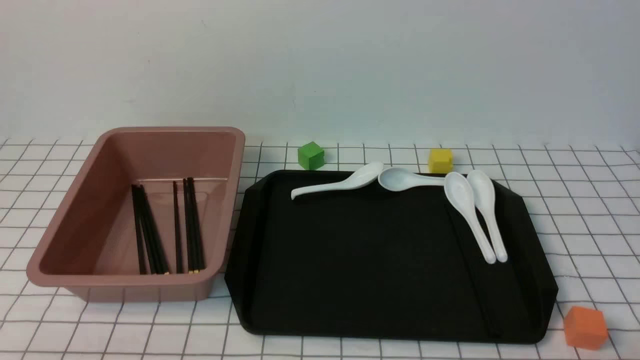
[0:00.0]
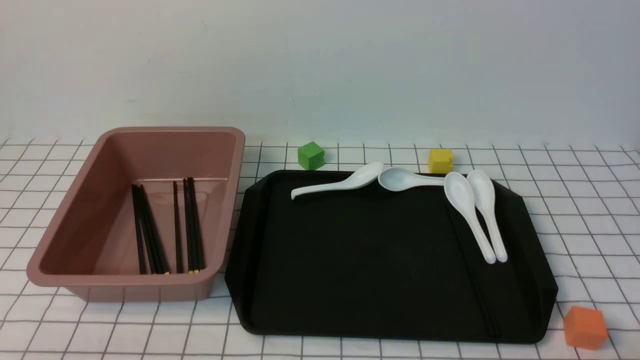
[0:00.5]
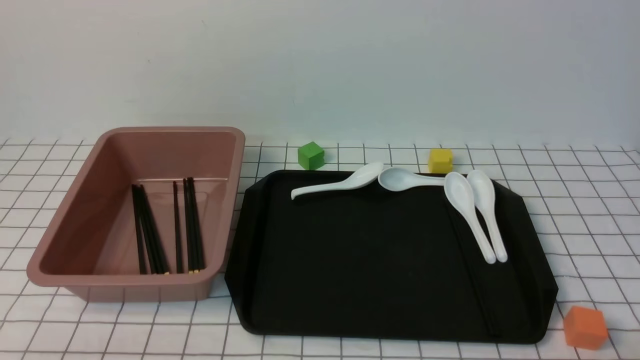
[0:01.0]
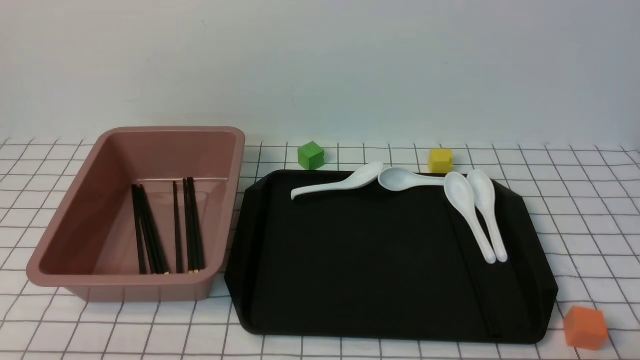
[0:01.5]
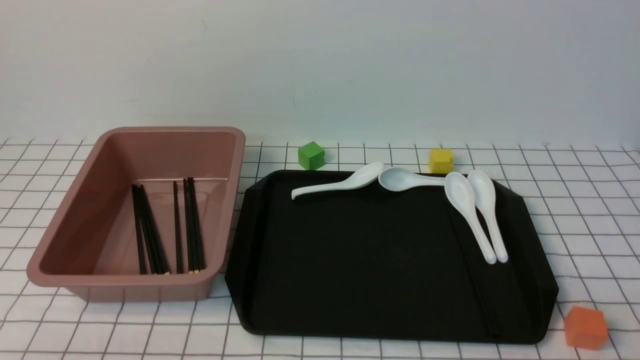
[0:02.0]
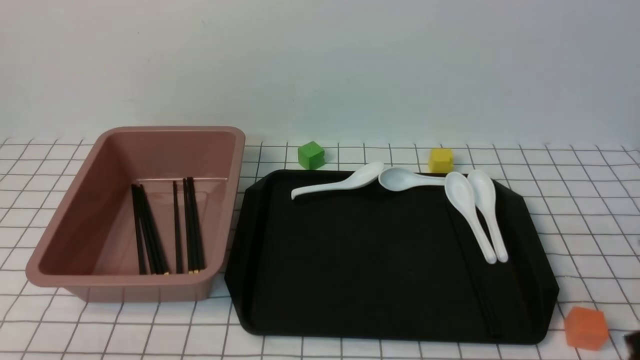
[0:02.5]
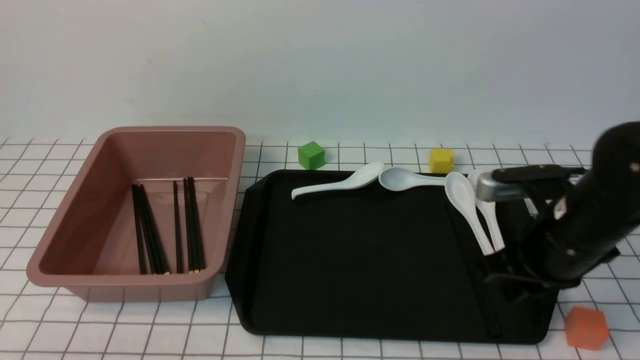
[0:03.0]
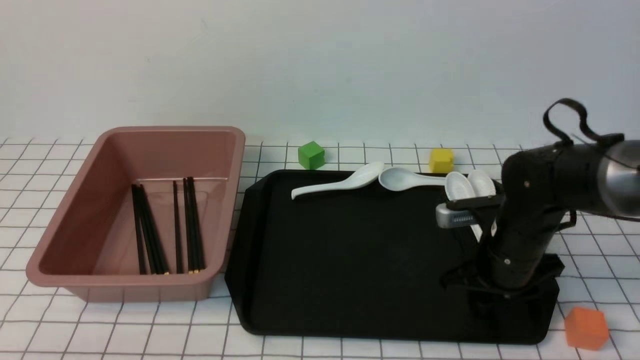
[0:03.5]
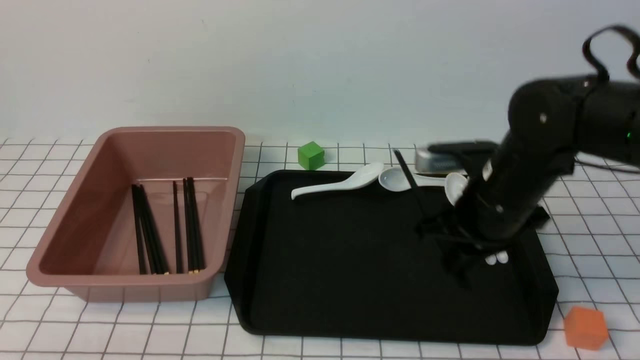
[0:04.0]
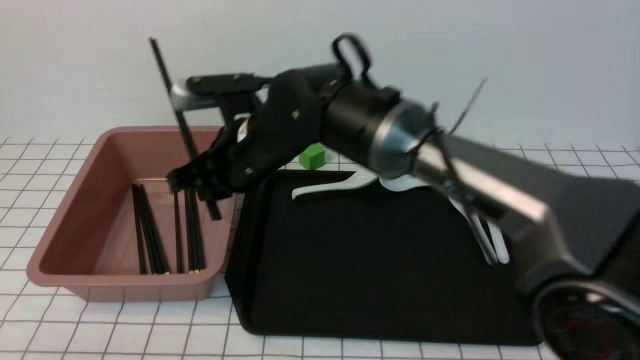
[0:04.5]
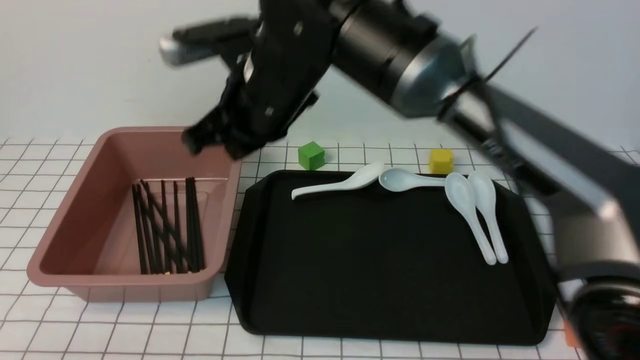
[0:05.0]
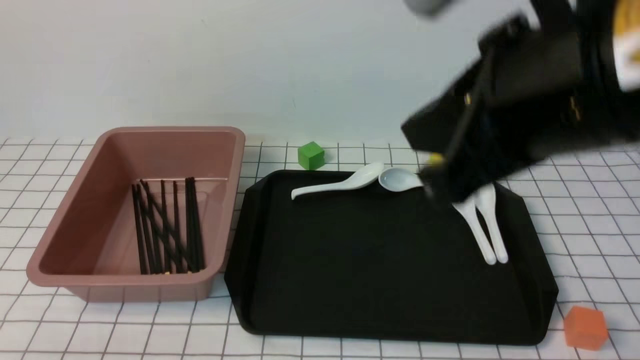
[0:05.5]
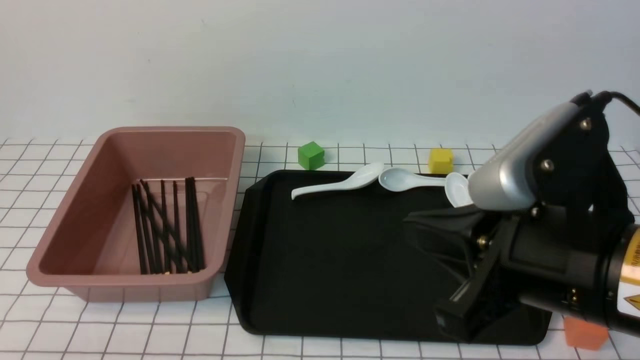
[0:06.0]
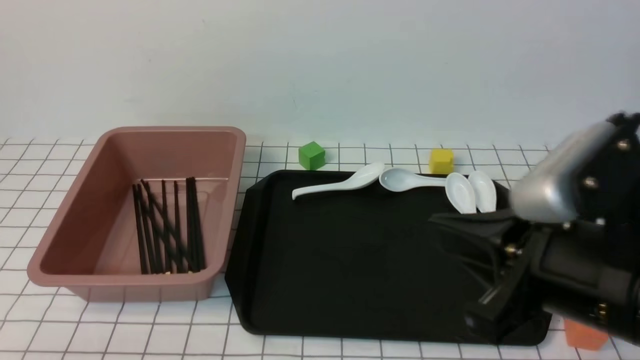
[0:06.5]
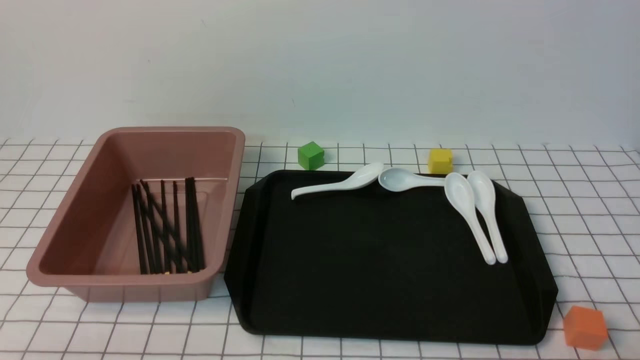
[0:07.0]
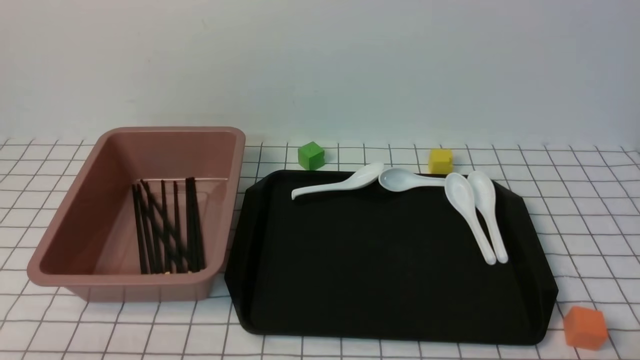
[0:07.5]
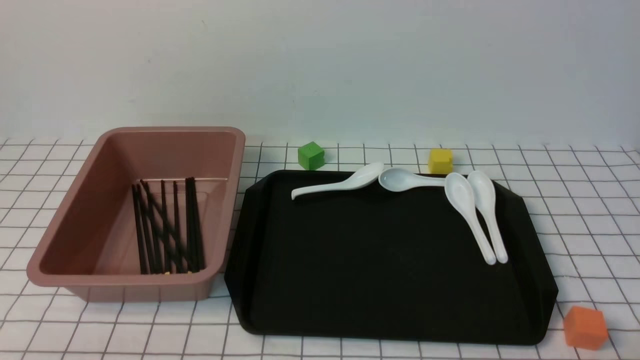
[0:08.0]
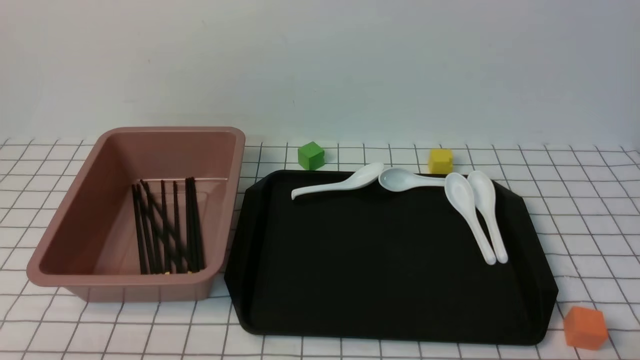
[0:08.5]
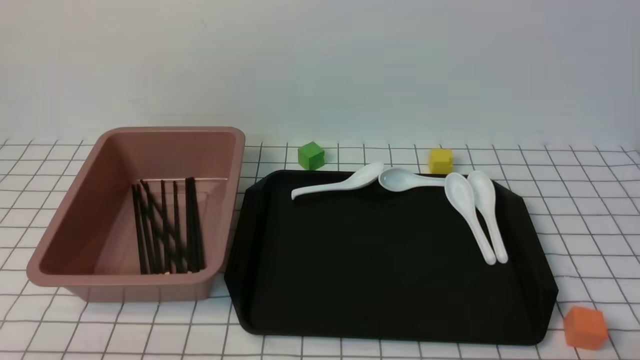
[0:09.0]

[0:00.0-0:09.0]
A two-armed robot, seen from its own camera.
Step, 0:00.0 to 0:03.5: use the right arm to grab a pair of chopsticks.
Step, 0:04.0 to 0:04.5: use the right arm to put the chopsticks into the lunch box.
0:02.0 to 0:04.5: The right gripper moves to the left and forward, approximately 50 cm, and closes, then reopens.
0:04.5 to 0:07.0: The right gripper goes approximately 50 cm to the right and backward, and closes.

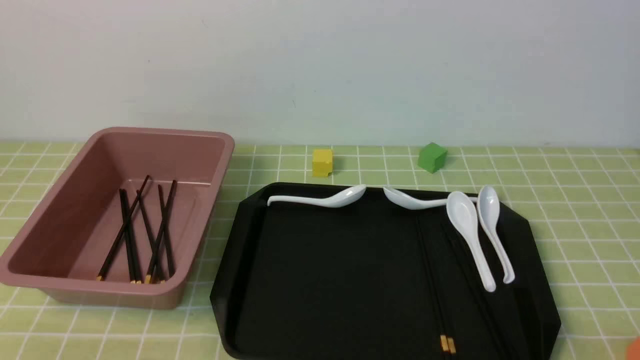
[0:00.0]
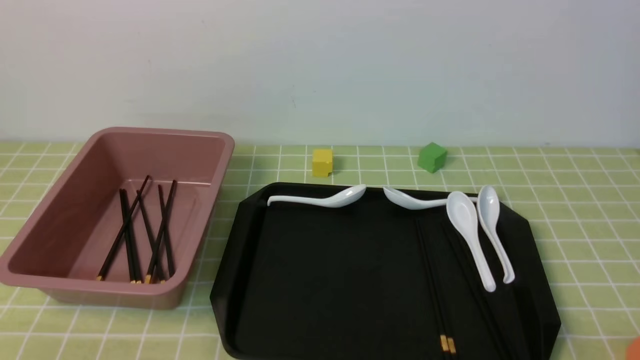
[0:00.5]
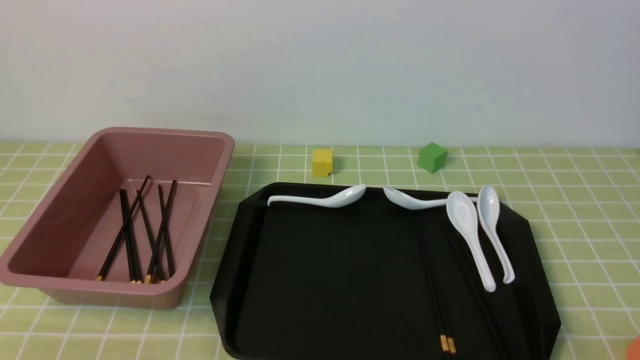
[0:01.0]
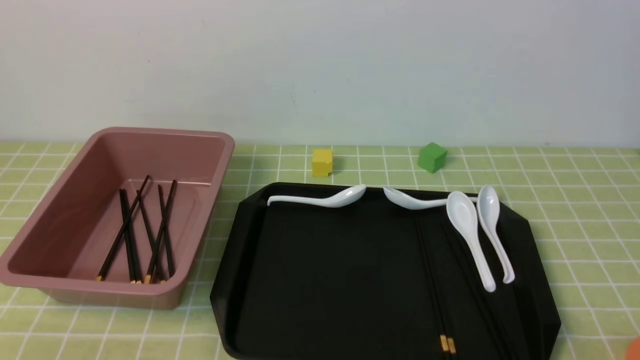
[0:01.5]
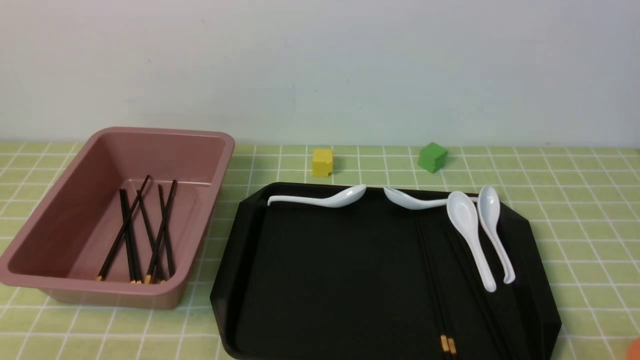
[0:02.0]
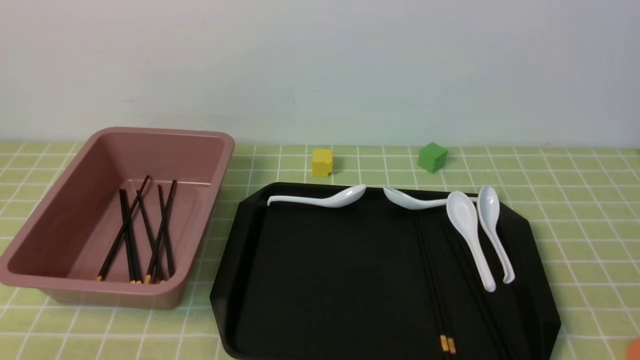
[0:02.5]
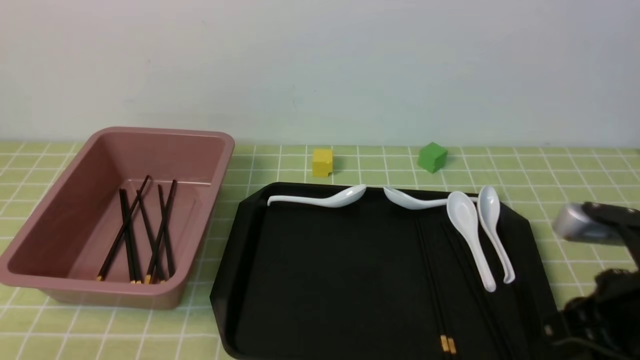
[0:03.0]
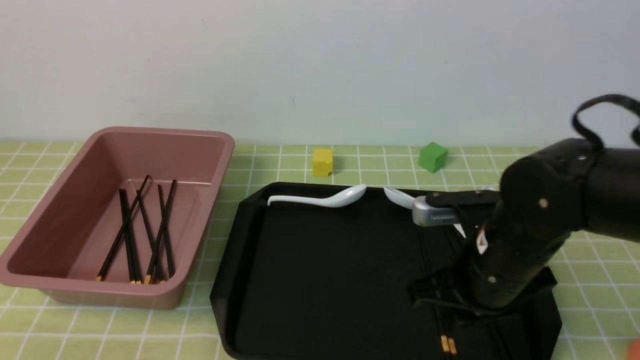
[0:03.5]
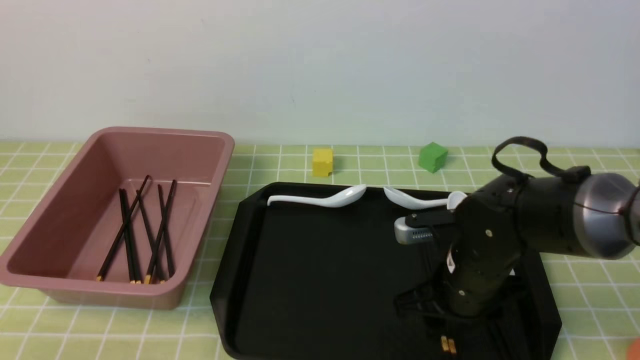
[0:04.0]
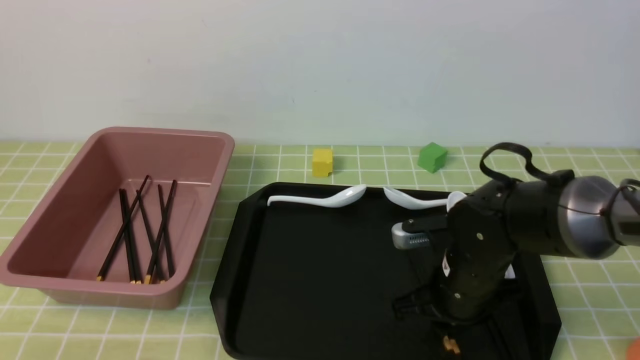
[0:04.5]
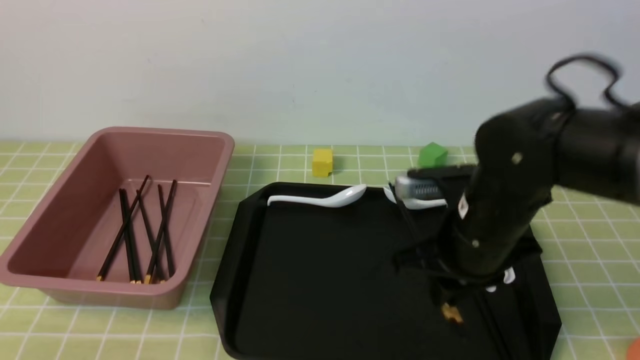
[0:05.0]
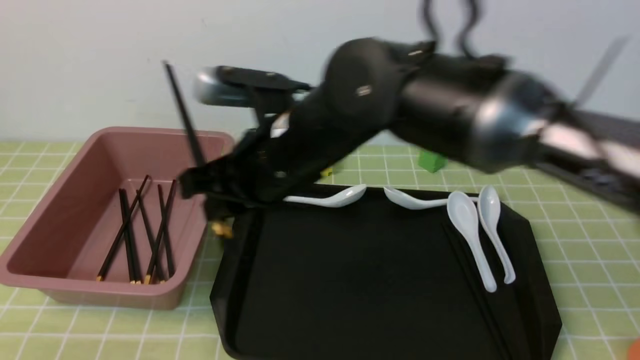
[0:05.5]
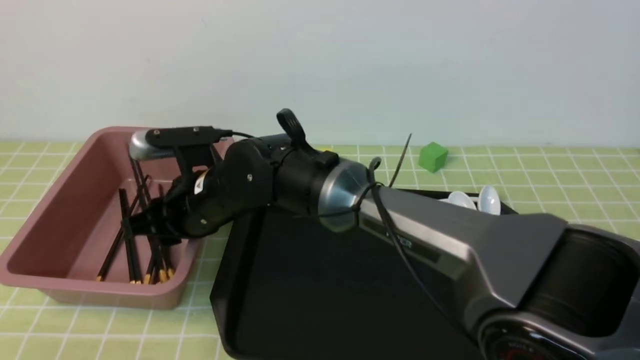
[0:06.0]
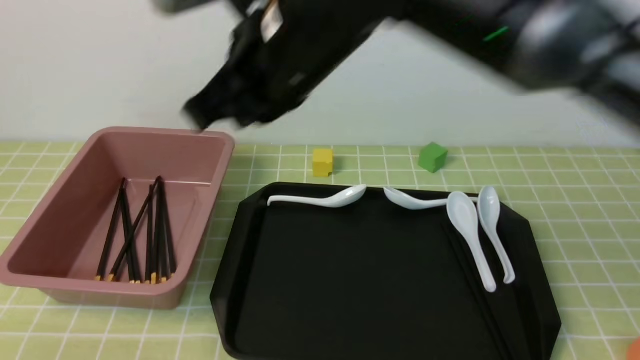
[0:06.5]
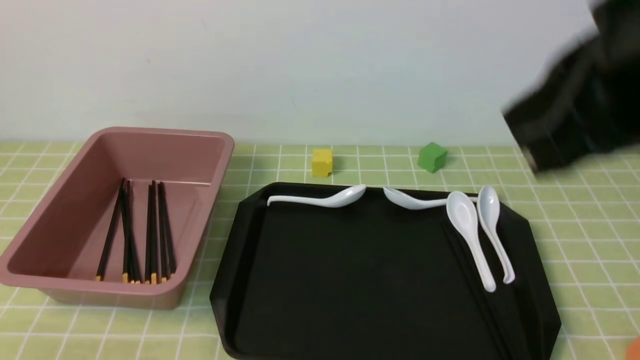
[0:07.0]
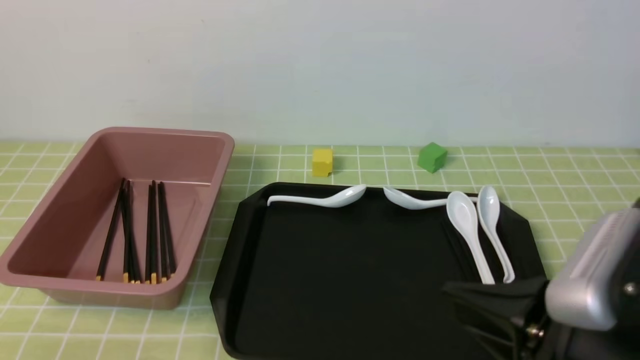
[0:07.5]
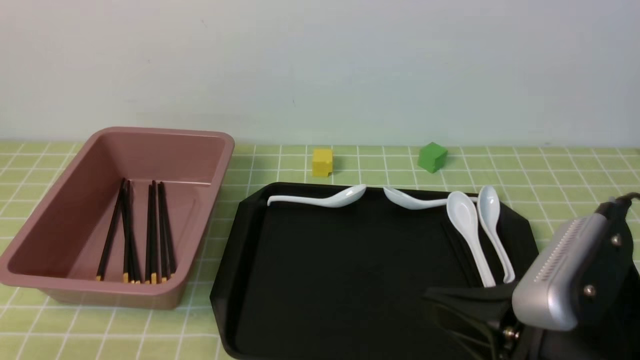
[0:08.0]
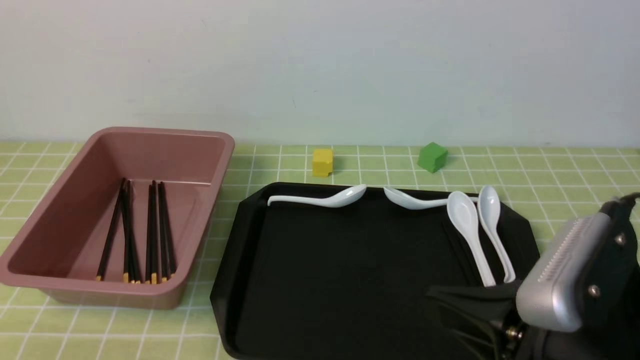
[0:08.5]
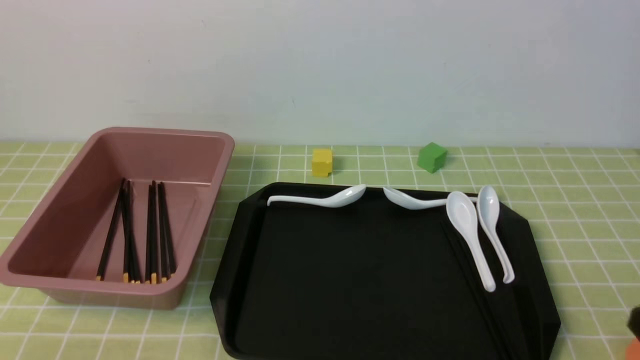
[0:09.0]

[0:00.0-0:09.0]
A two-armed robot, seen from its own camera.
Step, 0:00.0 to 0:05.0: use the right arm to grab a pair of chopsticks.
Step, 0:05.5 to 0:06.0: use the right arm to put the chopsticks into the lunch box.
0:02.0 to 0:04.5: The right gripper moves forward and to the left, some 30 cm, and closes and opens again.
0:04.5 to 0:07.0: The right gripper goes up and down, approximately 30 cm each way, reversing 2 times, and closes up.
0:07.0 to 0:09.0: The right gripper goes some 25 cm downward, to the right and backward.

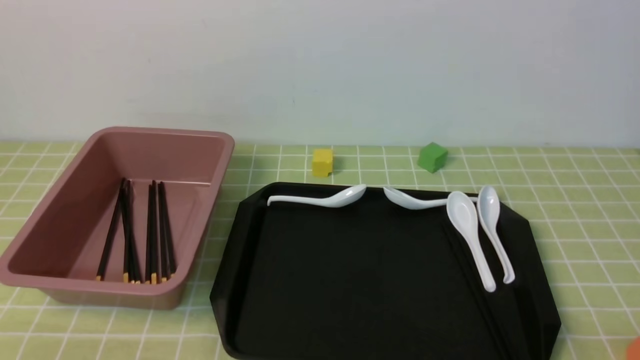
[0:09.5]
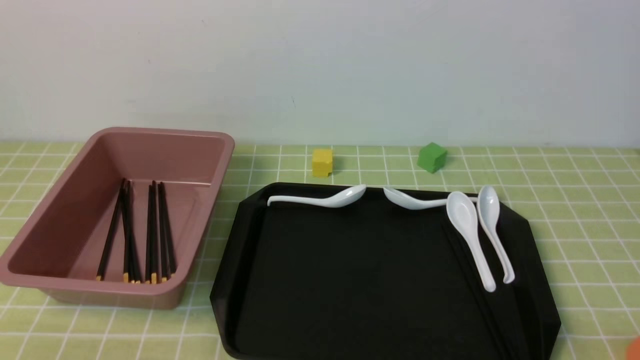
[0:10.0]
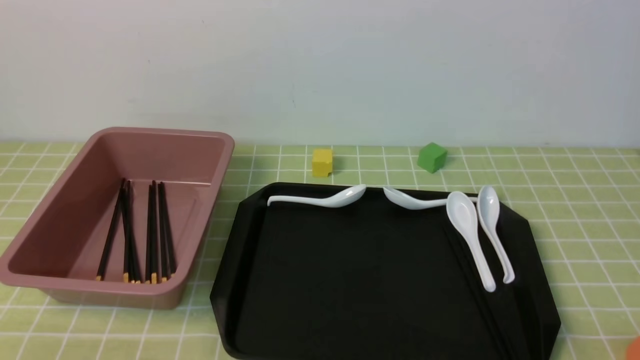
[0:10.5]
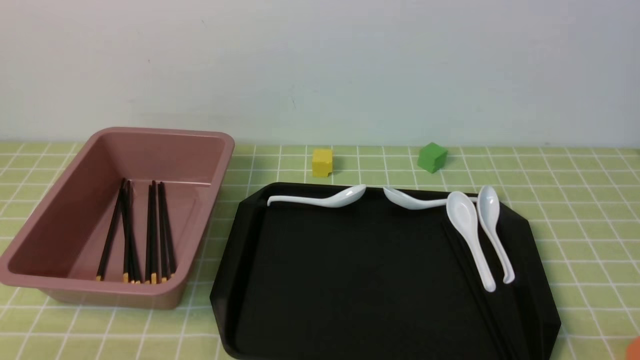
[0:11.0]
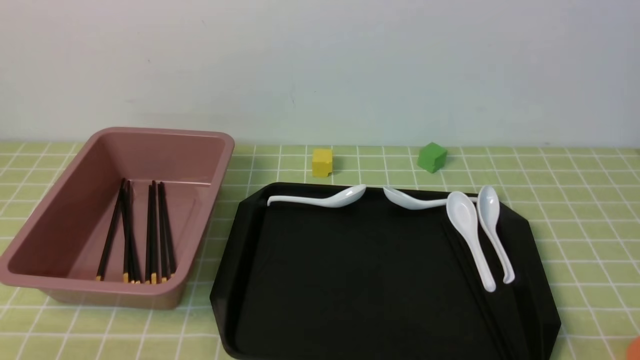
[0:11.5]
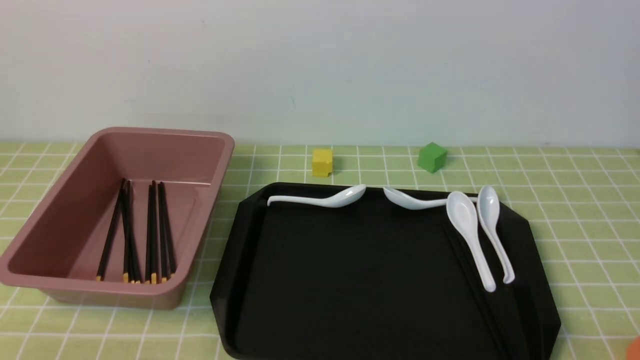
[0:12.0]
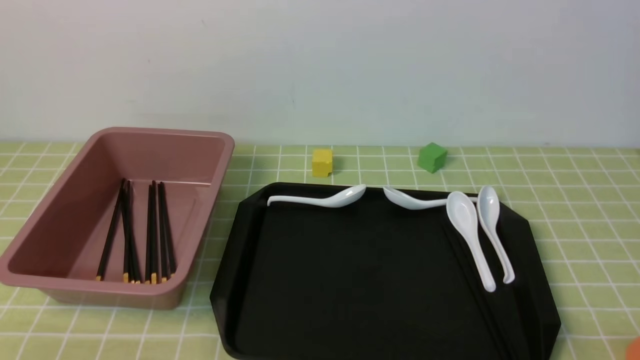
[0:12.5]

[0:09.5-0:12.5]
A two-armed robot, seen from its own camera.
0:09.5 to 0:12.5: Neither gripper changes place.
